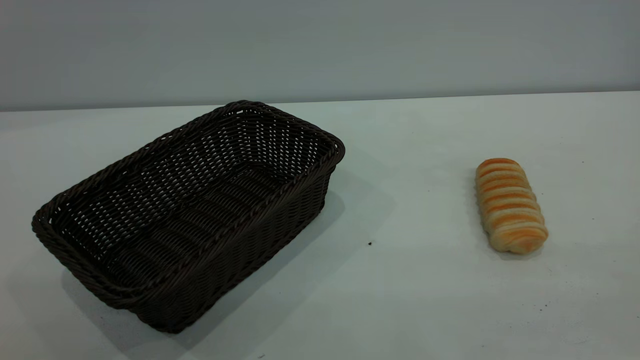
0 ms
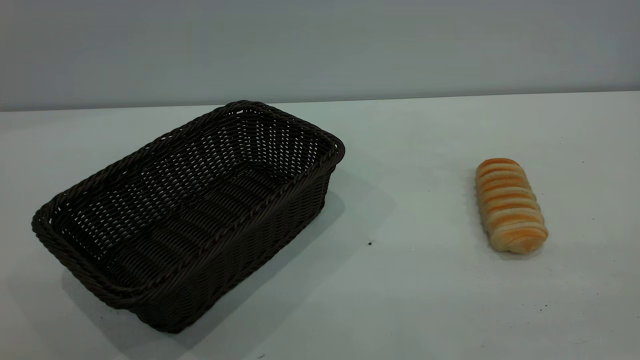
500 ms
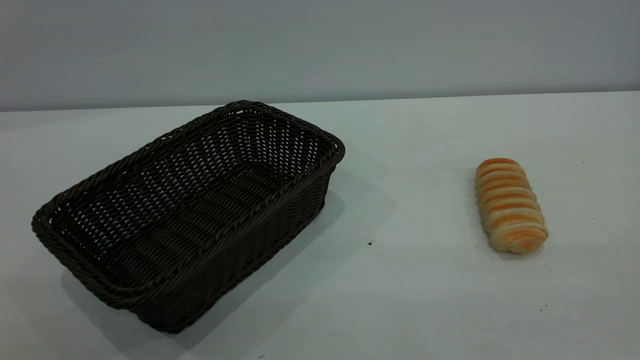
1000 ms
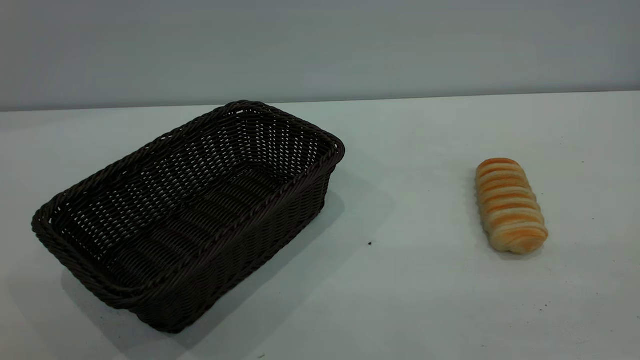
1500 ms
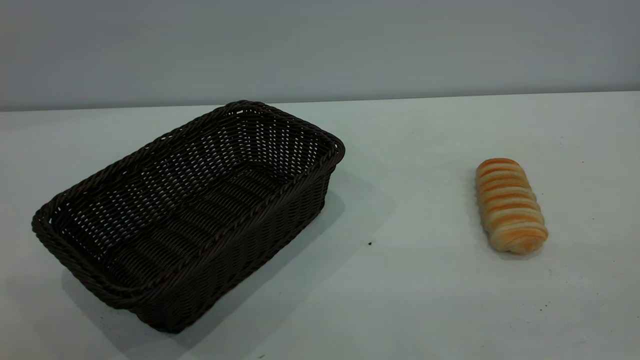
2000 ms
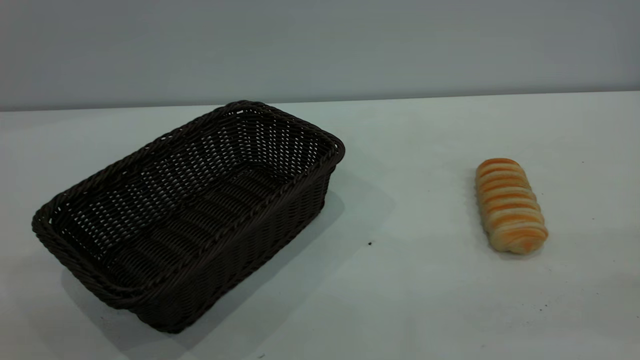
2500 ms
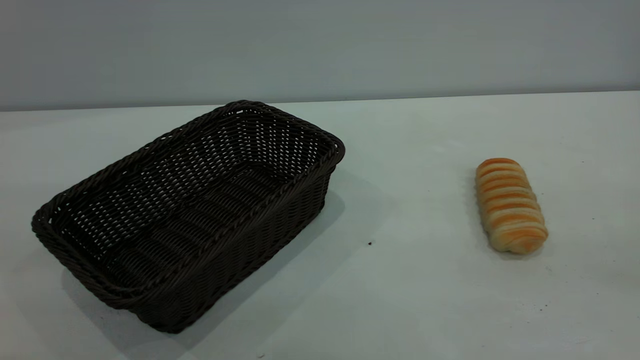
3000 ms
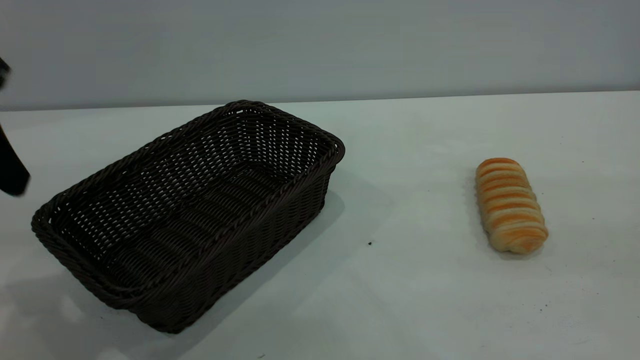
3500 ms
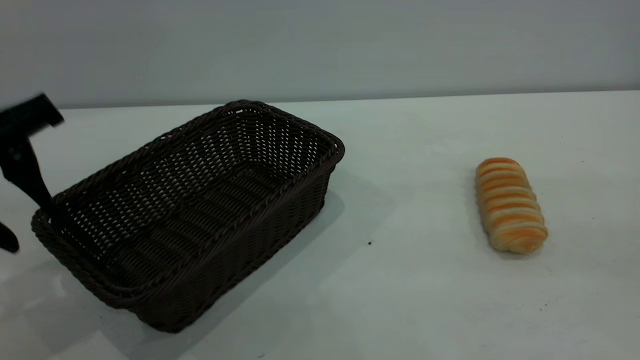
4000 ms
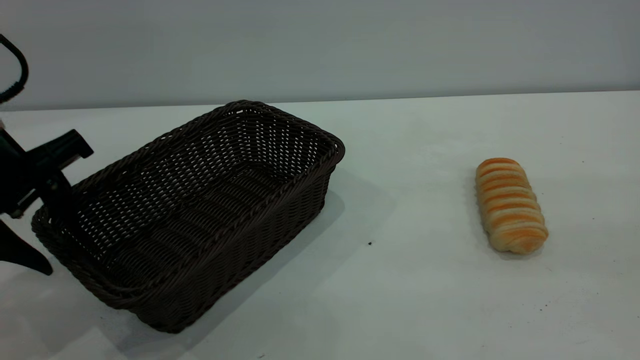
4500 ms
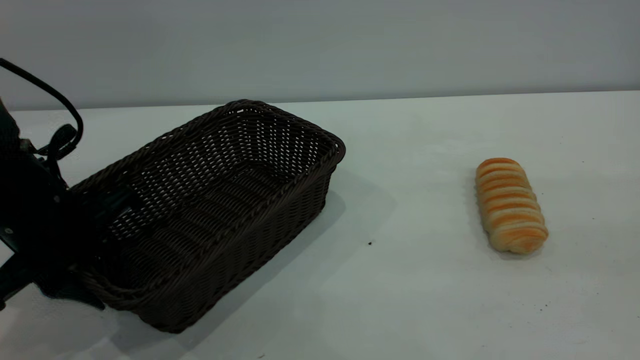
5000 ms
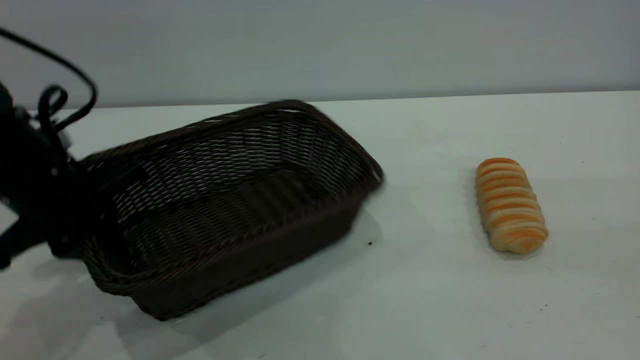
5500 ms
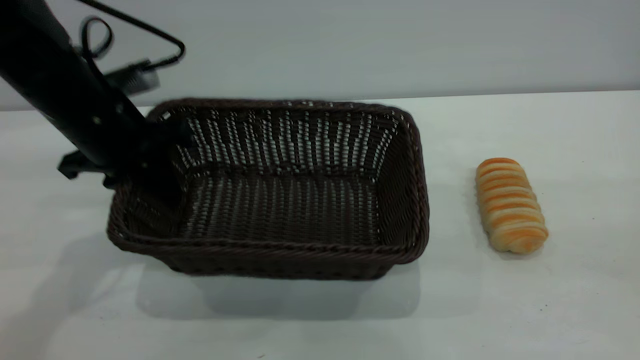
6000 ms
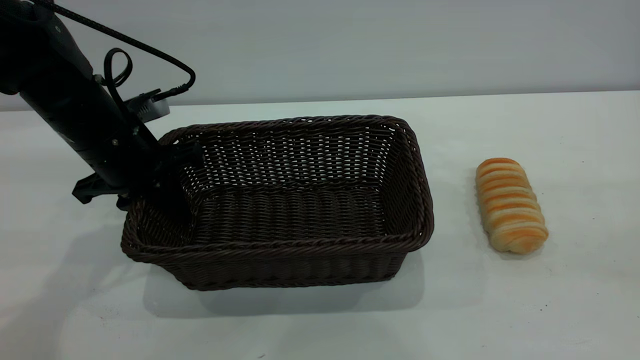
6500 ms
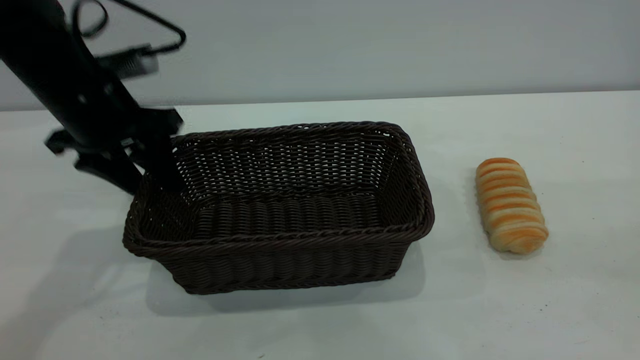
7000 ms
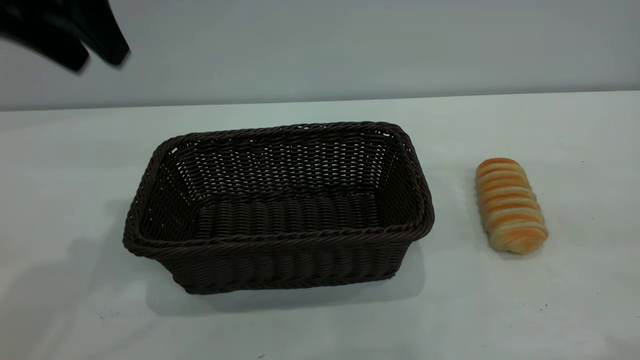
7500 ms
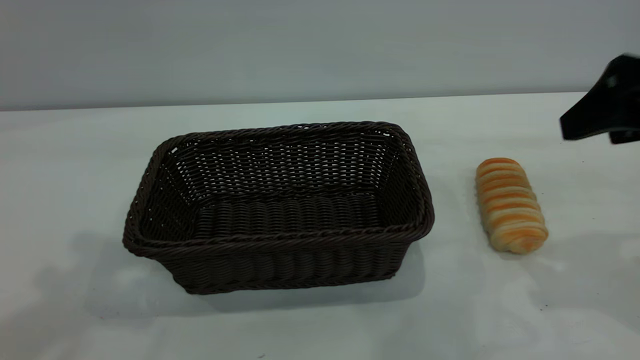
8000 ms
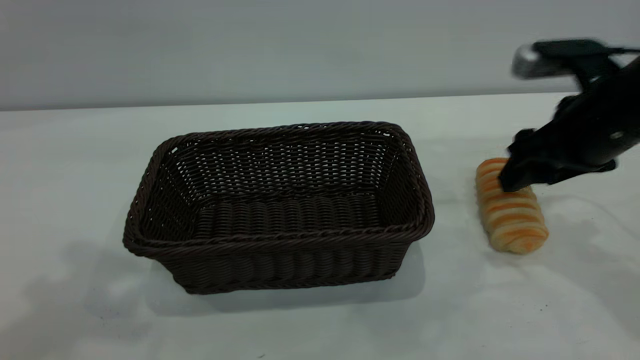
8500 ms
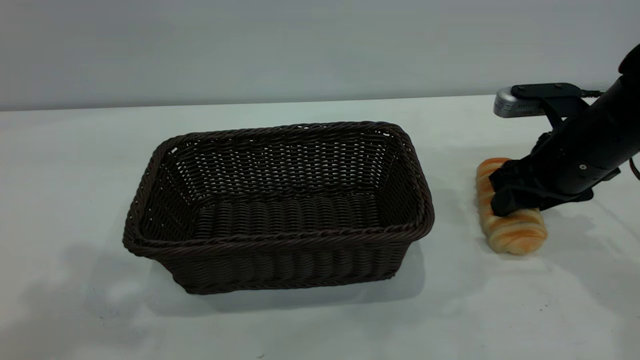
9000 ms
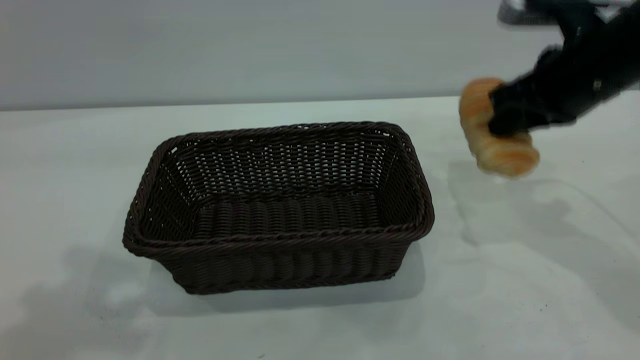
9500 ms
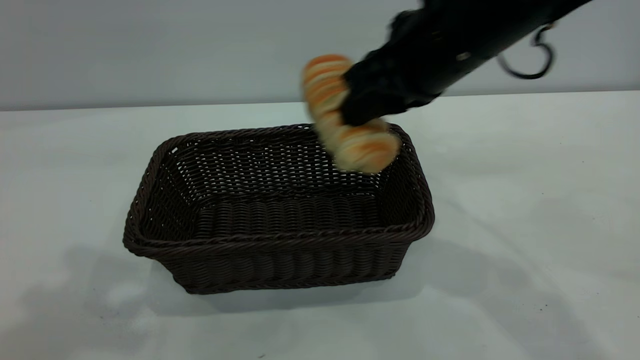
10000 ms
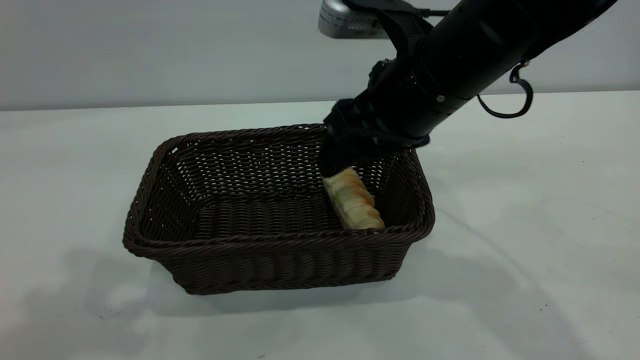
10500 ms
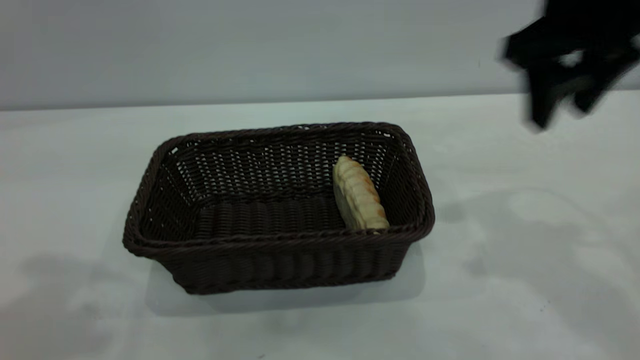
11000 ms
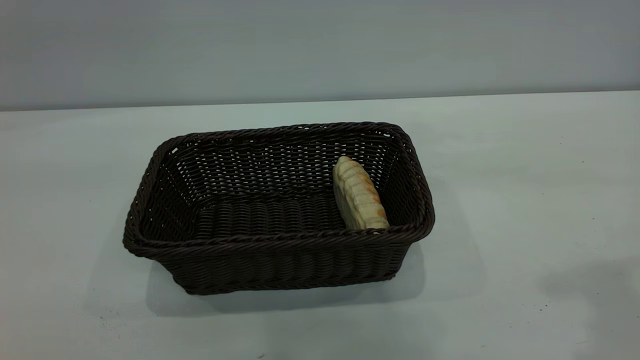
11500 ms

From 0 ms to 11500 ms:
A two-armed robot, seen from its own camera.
Task of the whole recording: One hand grasps the black basket and places it in the middle of the table, while the other hand picks up the long bread and puts it into the black basket.
Step, from 0 ms to 7000 ms: Move the basket to the center of view.
Step, from 10000 ms to 10500 ms: place the bread into the basket.
From 0 ms to 2000 ms: Both grippers stay put.
From 2000 ms to 4000 ms: The left gripper goes about 30 cm forward and downward.
From 4000 ms to 6000 ms: The left gripper shifts roughly 15 cm forward and downward, and closes its fingers.
From 6000 ms to 7500 ms: The left gripper is displaced upward by some 20 cm, and opens up; the right gripper moves forward, some 5 cm.
From 7500 ms to 9500 ms: The right gripper goes roughly 25 cm forward and downward, and closes its fingers, while the left gripper goes approximately 10 cm upward and backward.
From 9500 ms to 11500 ms: The right gripper moves upward and backward, approximately 25 cm, and opens. The left gripper goes about 15 cm backward and upward.
